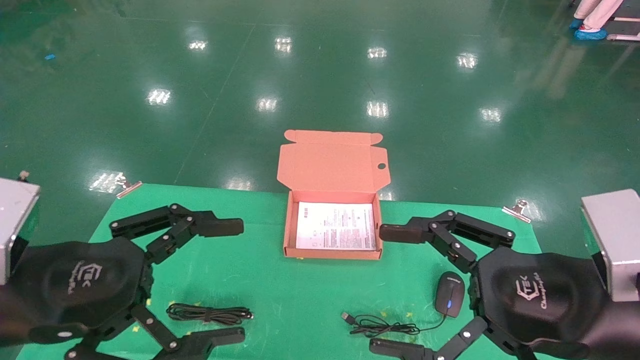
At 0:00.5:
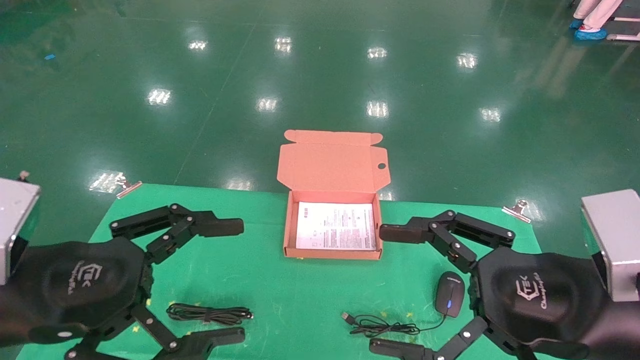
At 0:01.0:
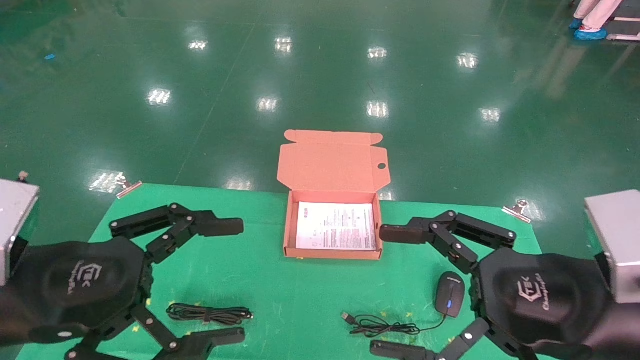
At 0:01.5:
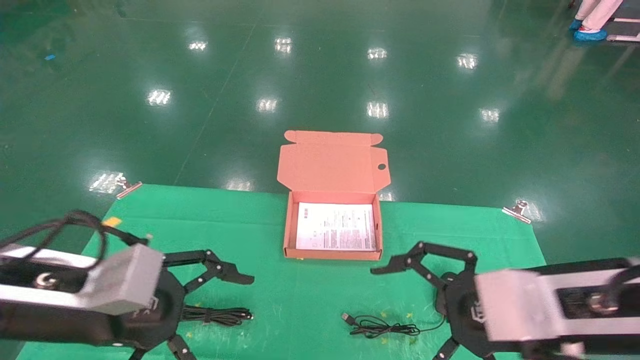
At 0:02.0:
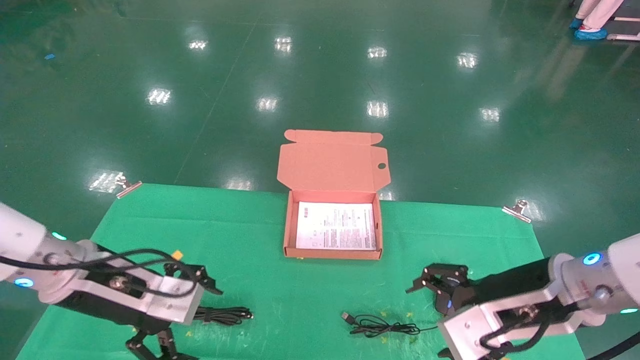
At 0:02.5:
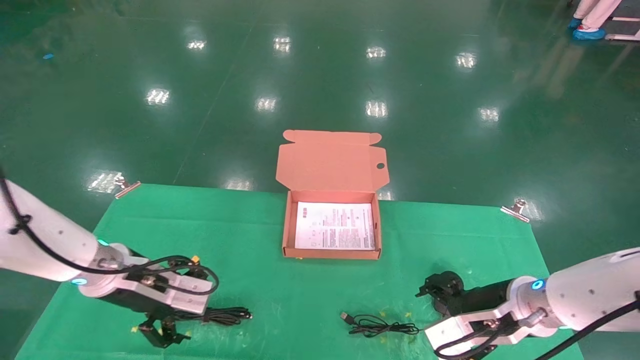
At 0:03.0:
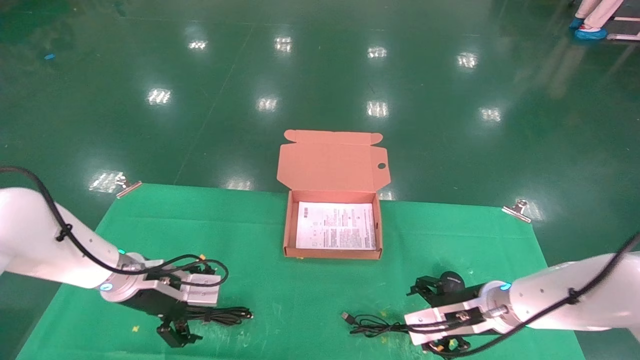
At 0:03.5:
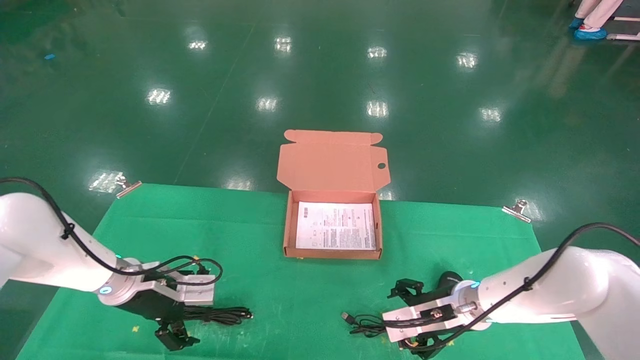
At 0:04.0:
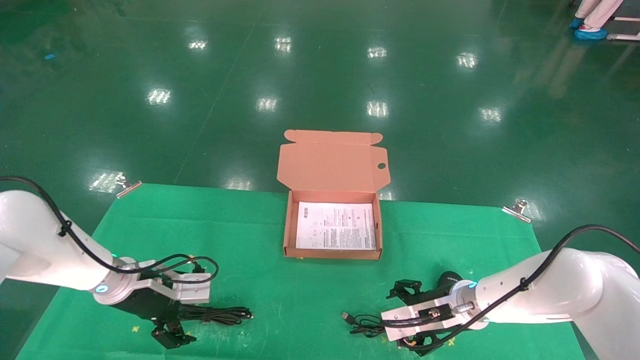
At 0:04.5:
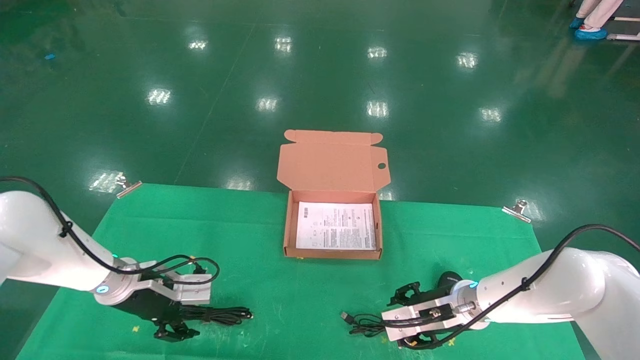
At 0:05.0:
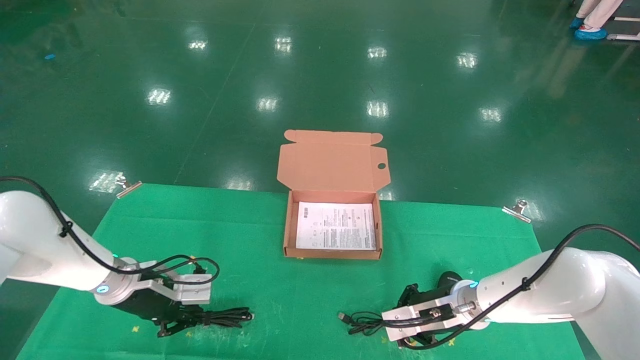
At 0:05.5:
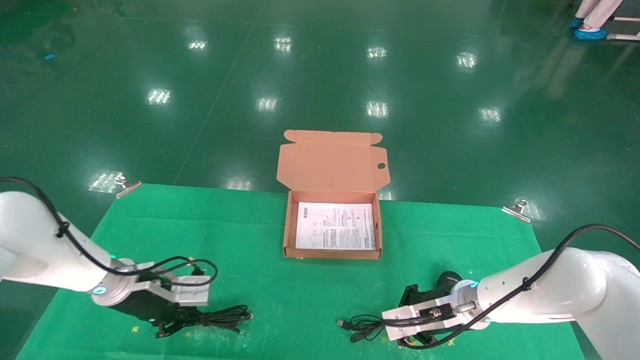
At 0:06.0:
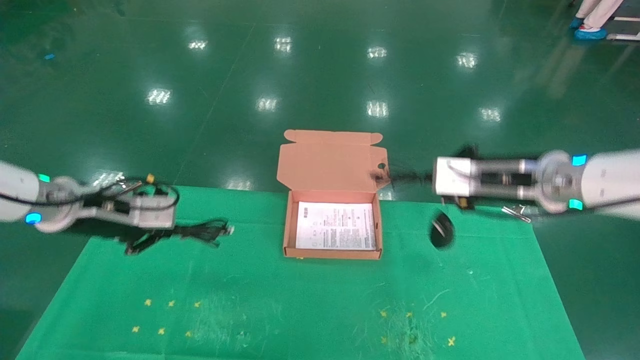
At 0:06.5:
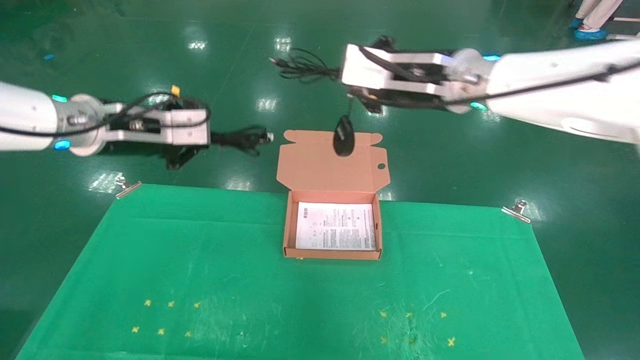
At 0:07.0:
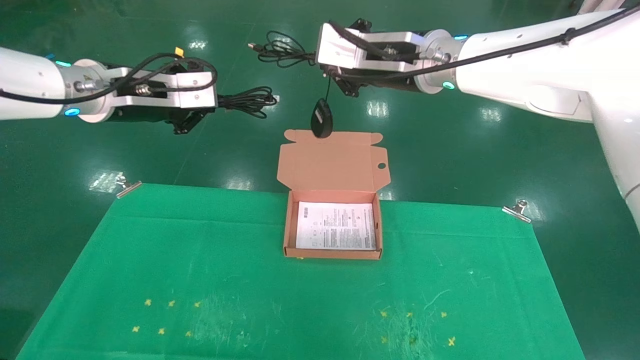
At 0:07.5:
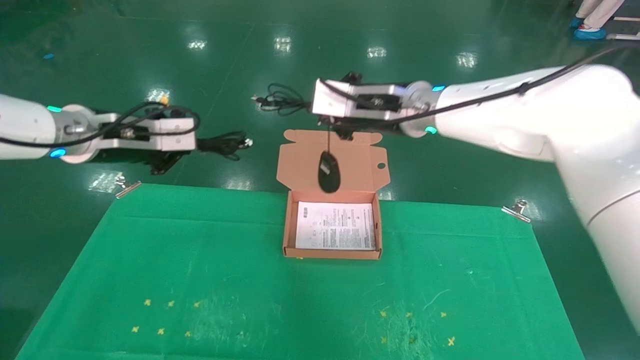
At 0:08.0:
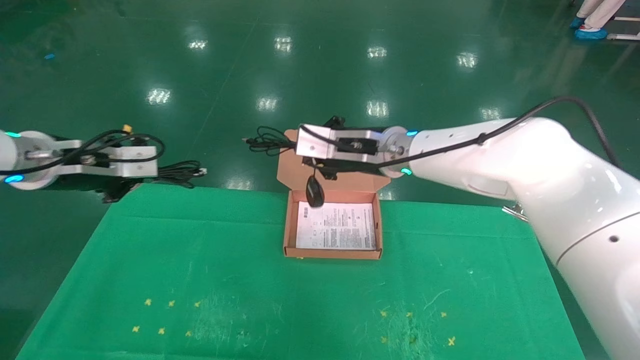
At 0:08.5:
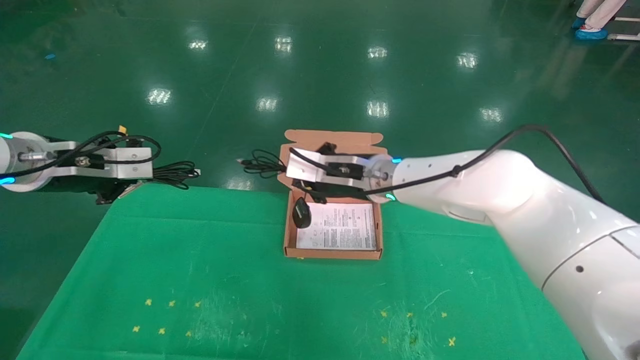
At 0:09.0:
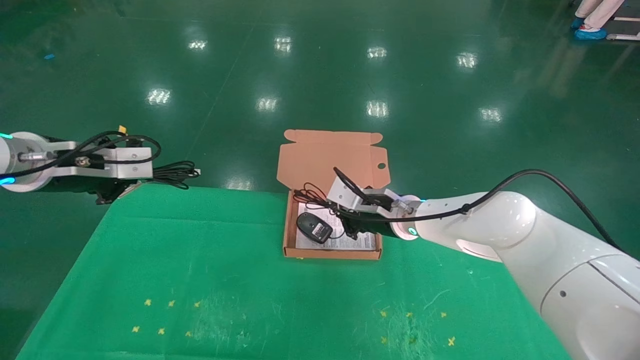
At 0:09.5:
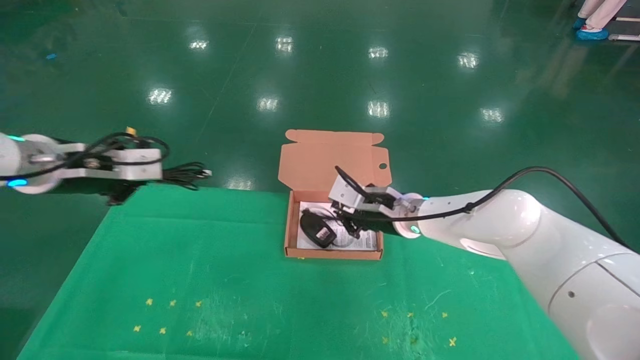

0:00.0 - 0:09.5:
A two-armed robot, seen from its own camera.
Task of the whole recording: grasp data cable left put into box grasp mouse right put into box.
Step, 0:01.0 - 0:05.5: Grab and pick up both the mouse and power cord from the accessory packaging area at the same time.
0:00.0 - 0:02.0: The right gripper shifts about 10 cm forward; the left gripper is displaced forward and downward by roughly 15 cm.
0:02.0 - 0:04.0: The two grippers go about 15 cm forward and downward.
0:04.0 - 0:05.5: The right gripper moves upward, some 5 cm, and closes its fingers. Meanwhile the left gripper closes its fingers.
0:05.5 - 0:07.5: The right gripper goes approximately 25 cm upward and to the left, while the left gripper goes roughly 20 cm upward.
0:07.5 - 0:09.5: The right gripper moves downward, roughly 15 cm. The left gripper changes place by roughly 5 cm.

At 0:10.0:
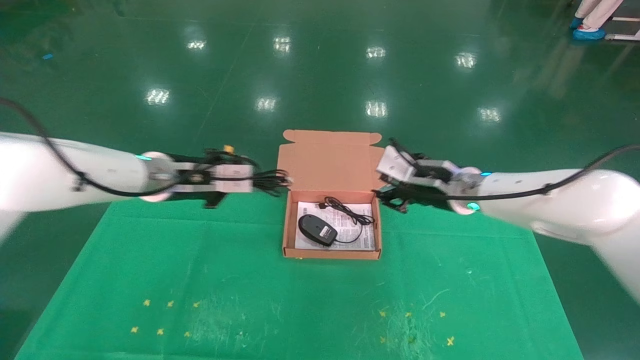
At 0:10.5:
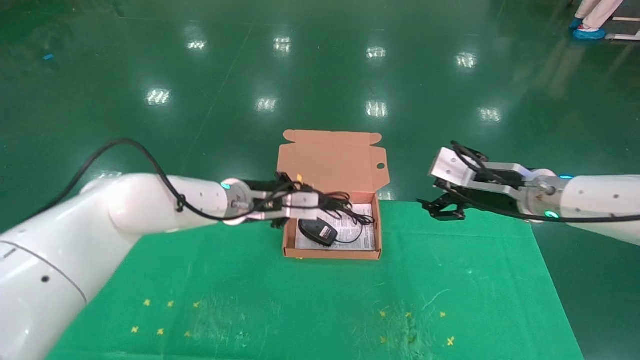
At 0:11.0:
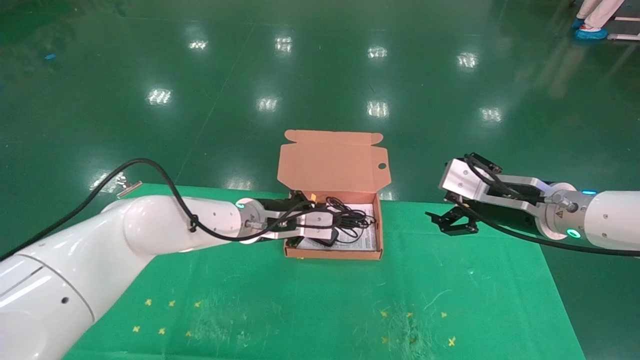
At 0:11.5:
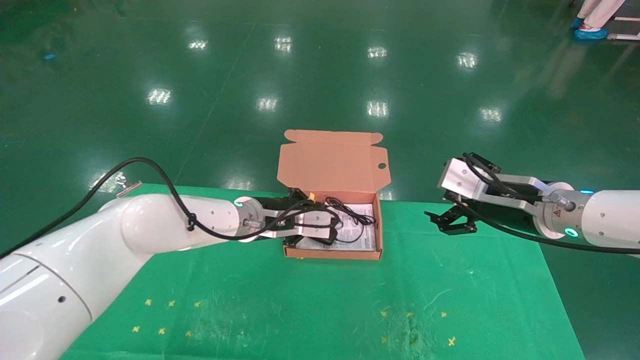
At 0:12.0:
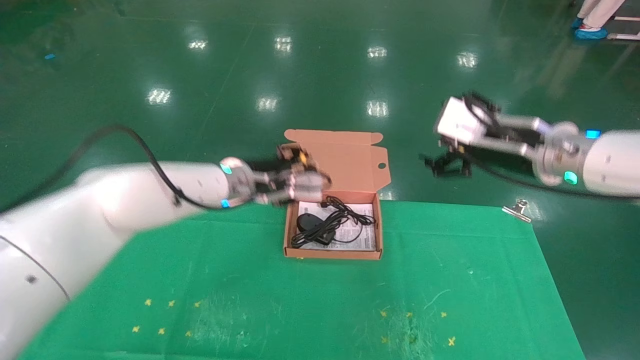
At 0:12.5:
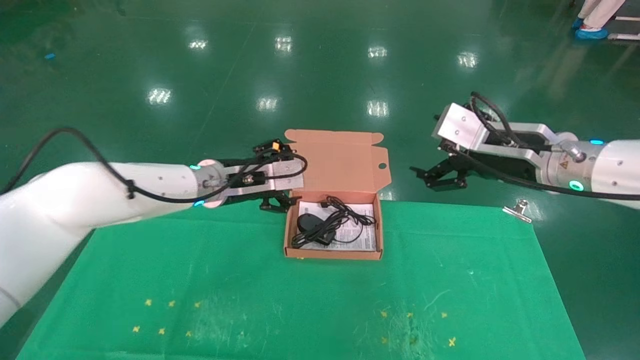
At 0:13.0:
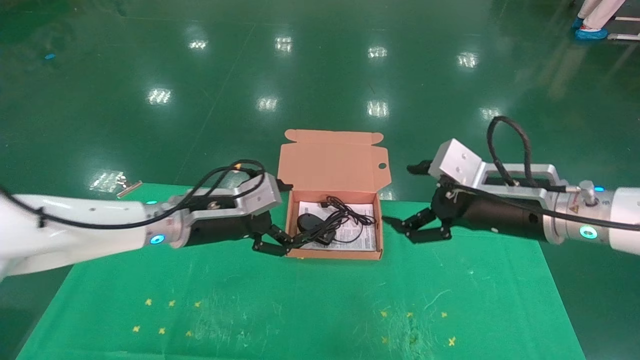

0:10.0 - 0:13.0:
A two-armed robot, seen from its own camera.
Task of the whole recording: grasp data cable left put into box grasp mouse right put into box.
0:10.0 - 0:11.5: The right gripper shifts roughly 15 cm to the right and backward, and opens, while the left gripper travels to the right and downward by about 15 cm.
0:11.5 - 0:13.0: The right gripper shifts by roughly 5 cm, while the left gripper goes roughly 10 cm to the left and backward, and opens its fingers.

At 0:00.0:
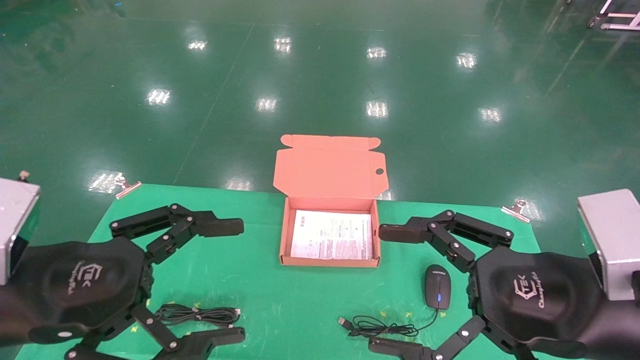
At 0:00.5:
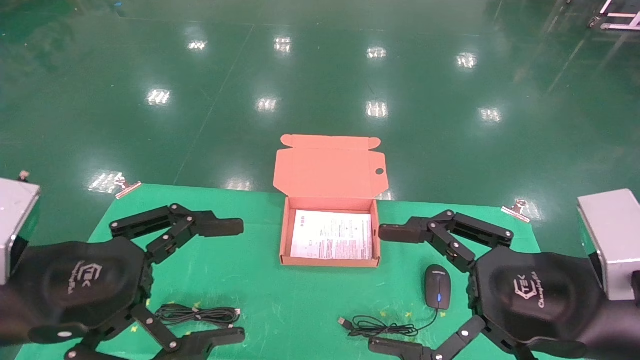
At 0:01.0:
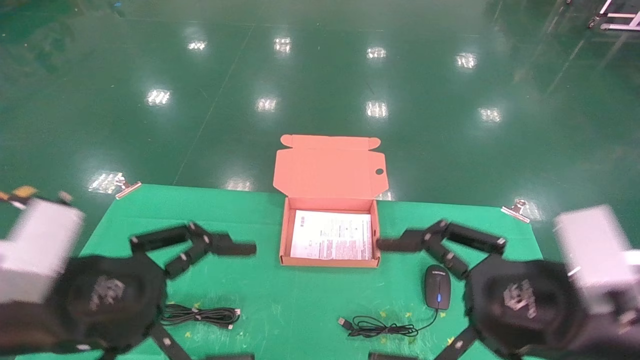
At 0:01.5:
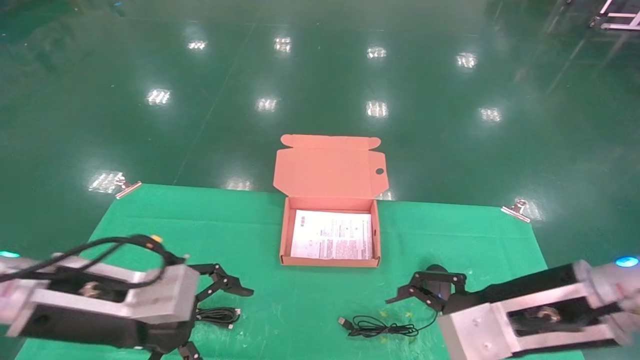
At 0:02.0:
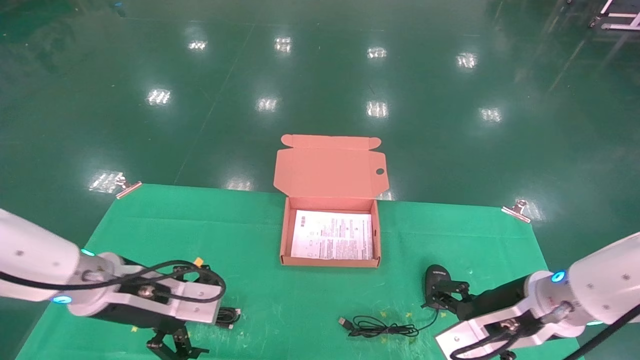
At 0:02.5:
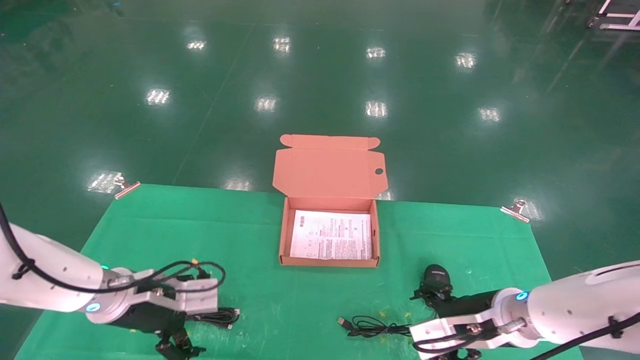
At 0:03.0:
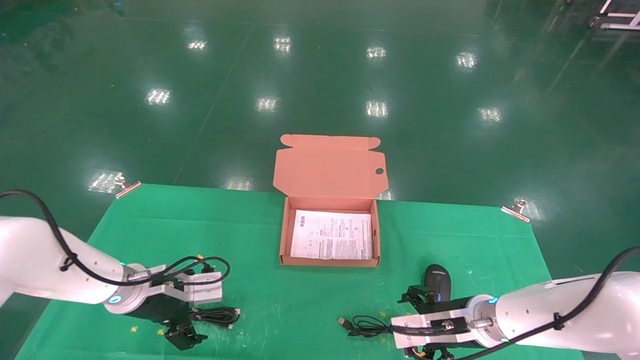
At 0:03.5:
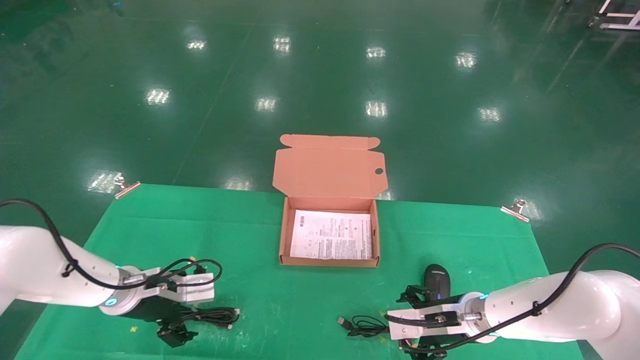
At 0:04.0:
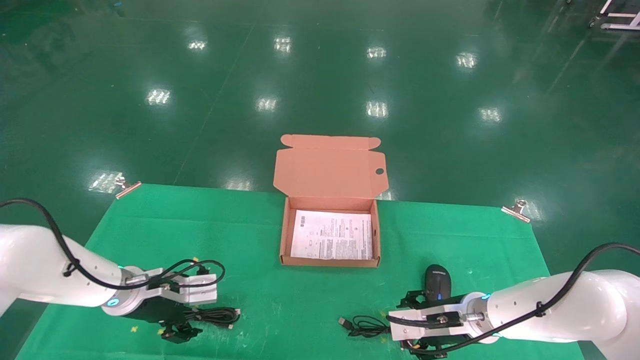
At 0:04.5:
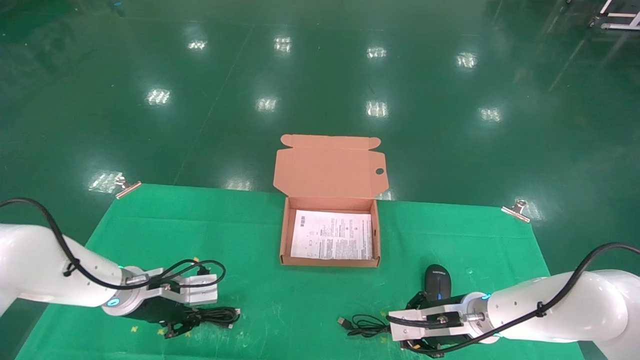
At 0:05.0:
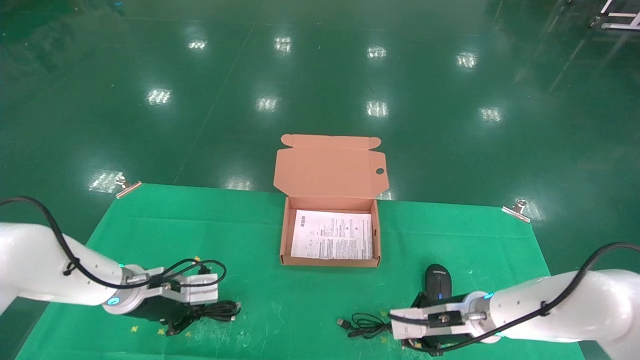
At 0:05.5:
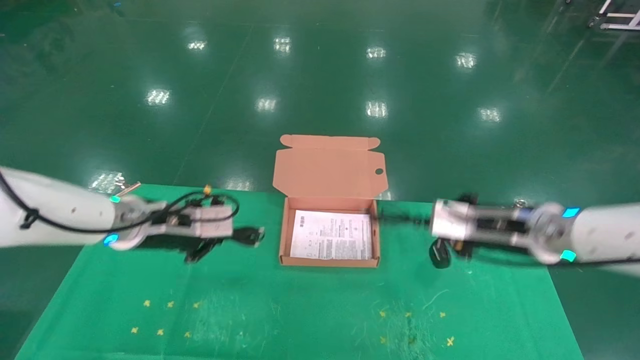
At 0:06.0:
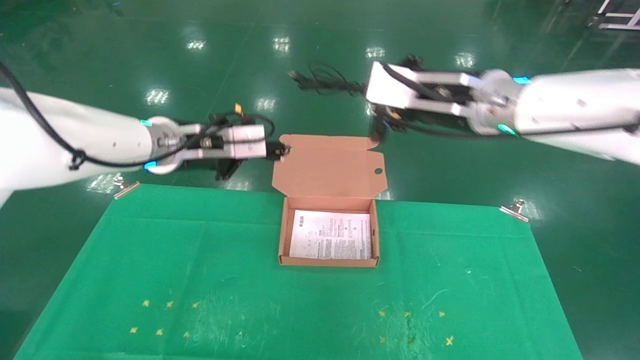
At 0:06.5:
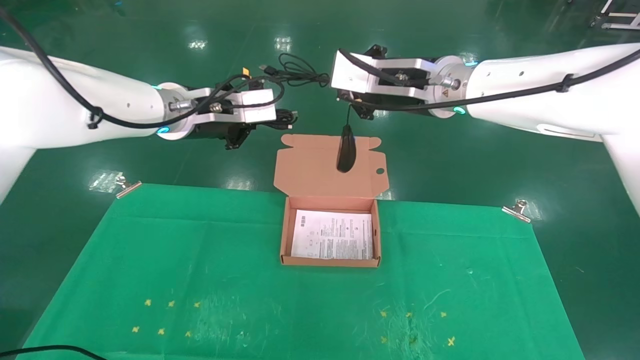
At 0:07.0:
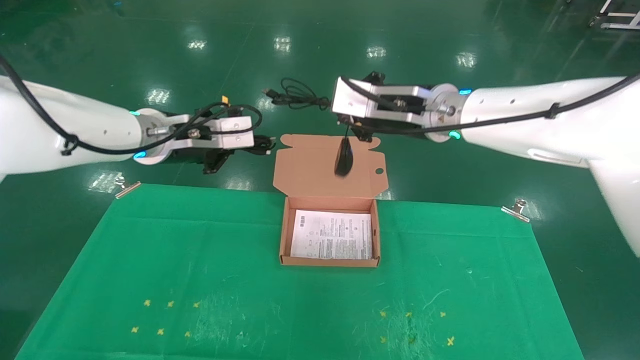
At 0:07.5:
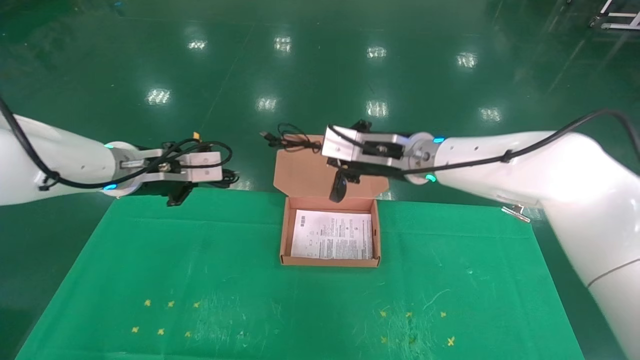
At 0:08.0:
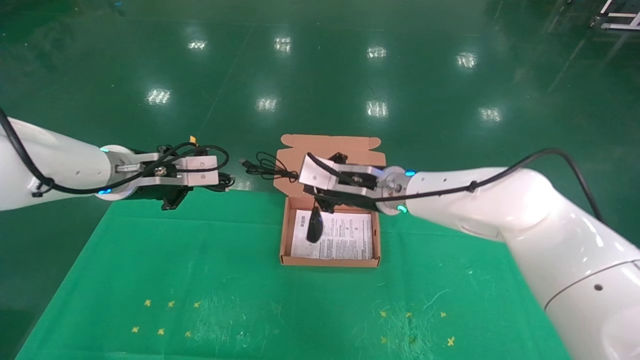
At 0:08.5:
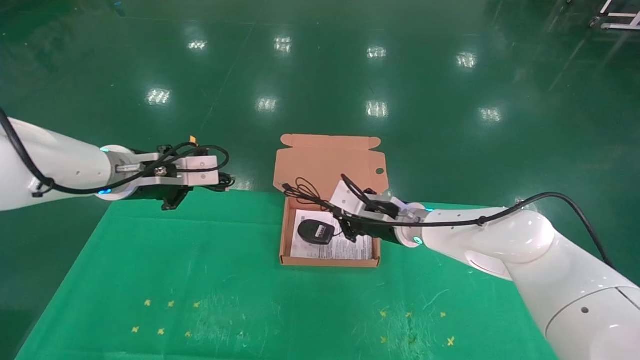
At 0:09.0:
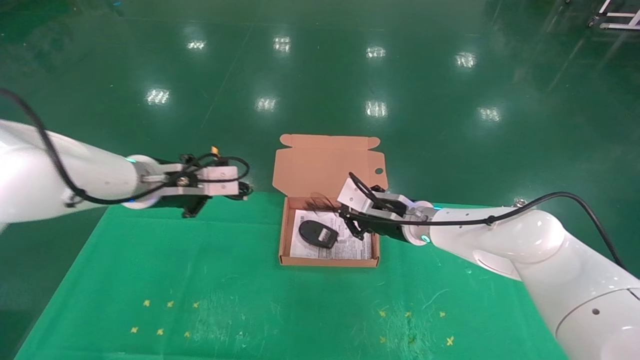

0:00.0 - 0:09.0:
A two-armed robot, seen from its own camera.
Task of the whole recording: grasp data cable left put into box grasp mouse right put into box.
Step, 0:01.0 - 0:04.5: Grab and pick up both the mouse and power cord from the accessory packaging area at the same time.
0:00.0 - 0:02.0: Both grippers move forward and downward, some 15 cm.
0:02.0 - 0:04.5: The right gripper moves downward and forward, about 15 cm, and closes its fingers, while the left gripper heads forward and downward, covering roughly 10 cm, and closes its fingers.
0:04.5 - 0:07.0: The two grippers go about 25 cm upward.
0:07.0 - 0:09.0: The right gripper moves downward, about 20 cm; the left gripper goes approximately 5 cm downward.
